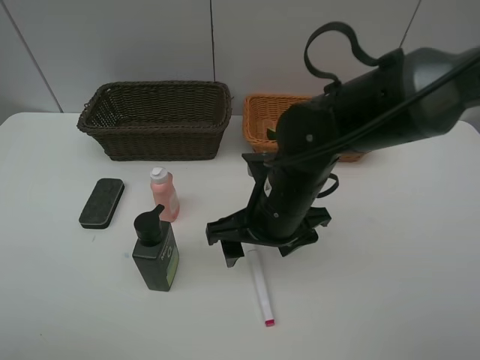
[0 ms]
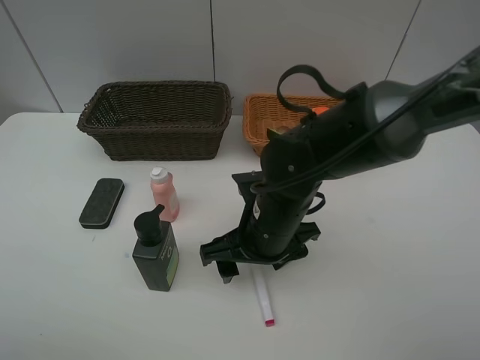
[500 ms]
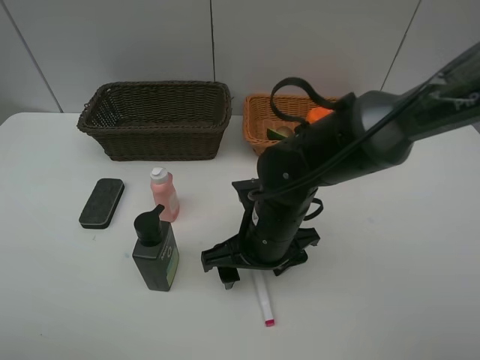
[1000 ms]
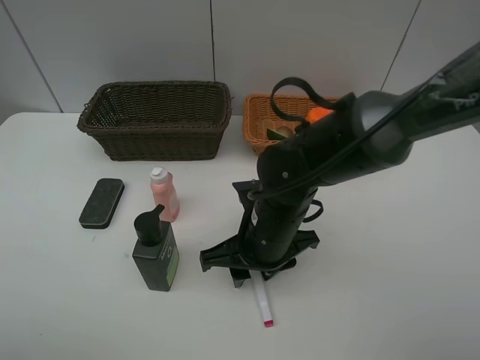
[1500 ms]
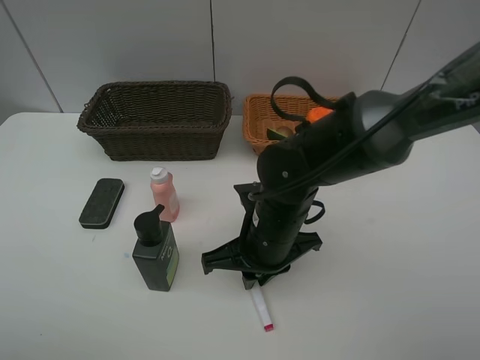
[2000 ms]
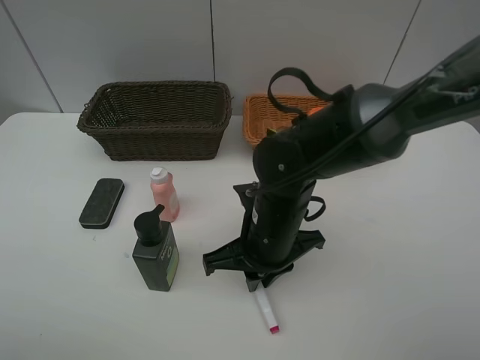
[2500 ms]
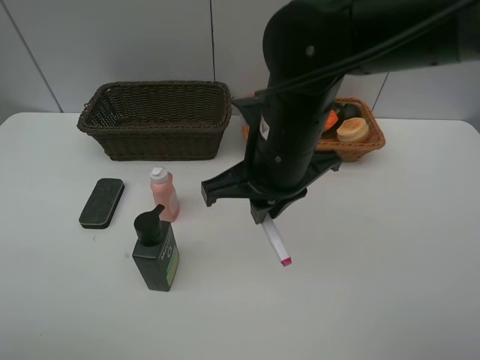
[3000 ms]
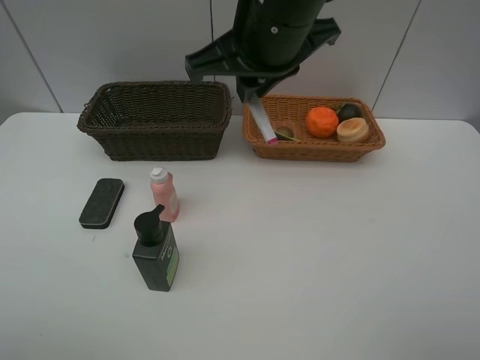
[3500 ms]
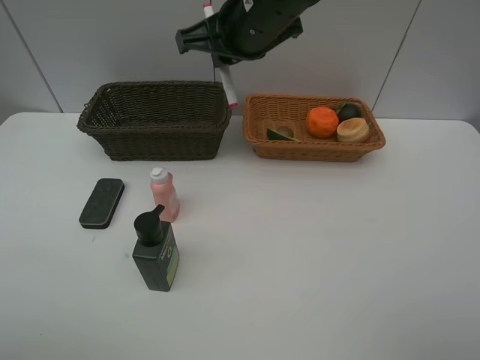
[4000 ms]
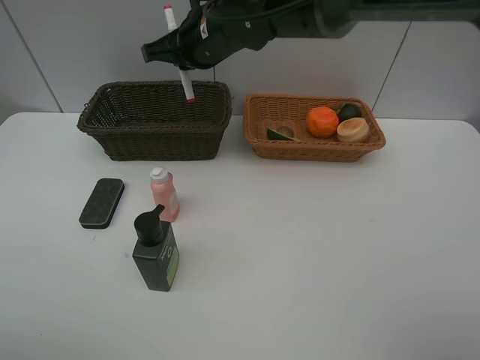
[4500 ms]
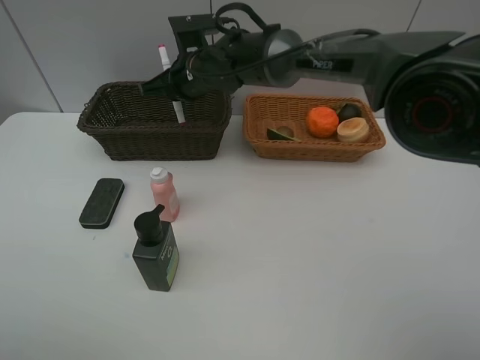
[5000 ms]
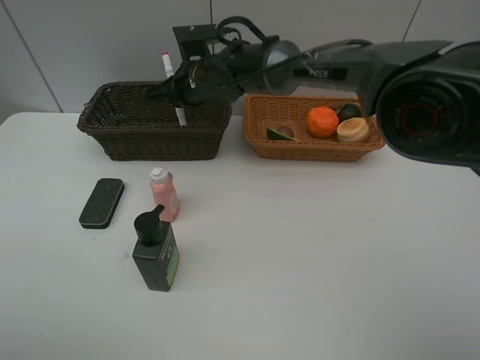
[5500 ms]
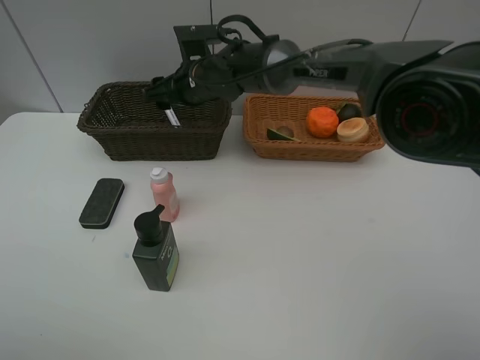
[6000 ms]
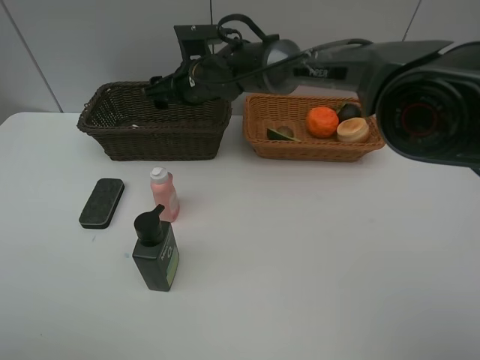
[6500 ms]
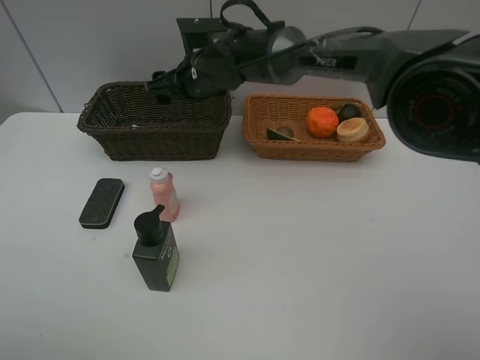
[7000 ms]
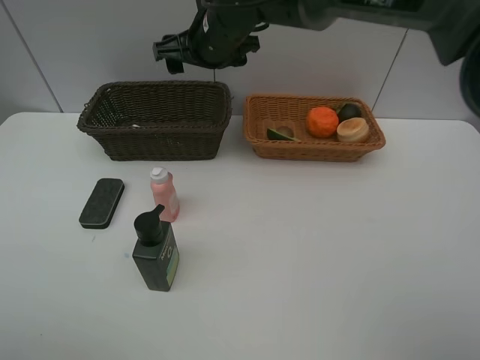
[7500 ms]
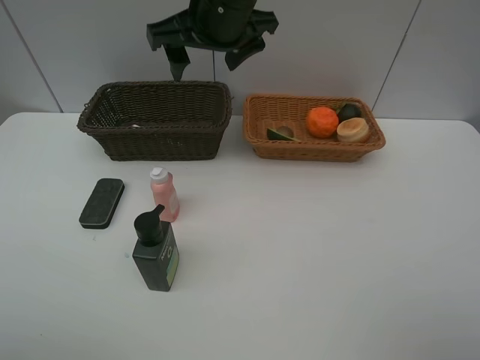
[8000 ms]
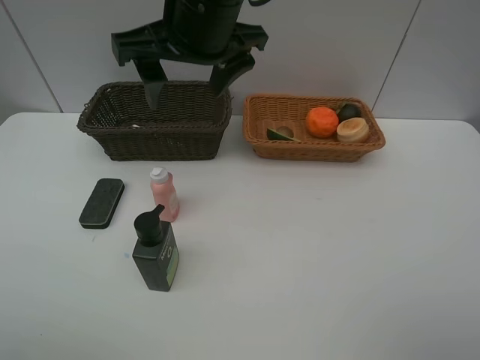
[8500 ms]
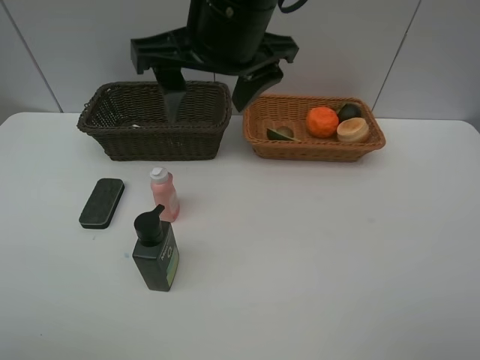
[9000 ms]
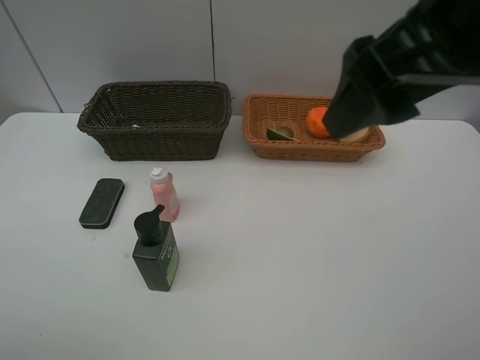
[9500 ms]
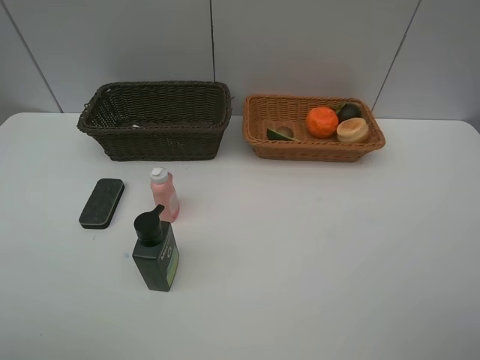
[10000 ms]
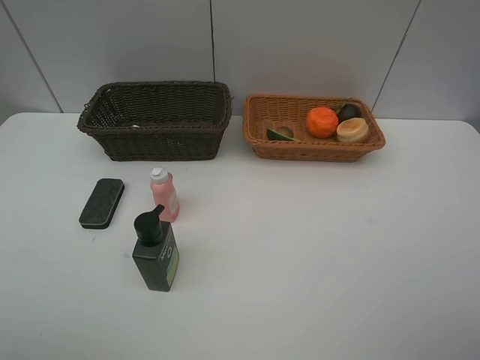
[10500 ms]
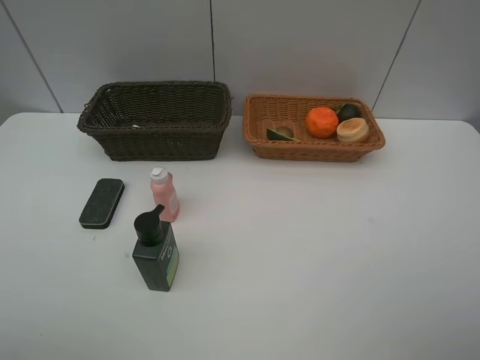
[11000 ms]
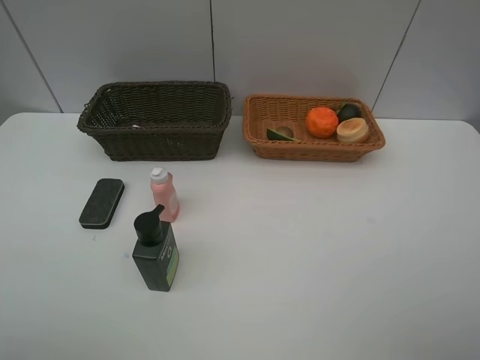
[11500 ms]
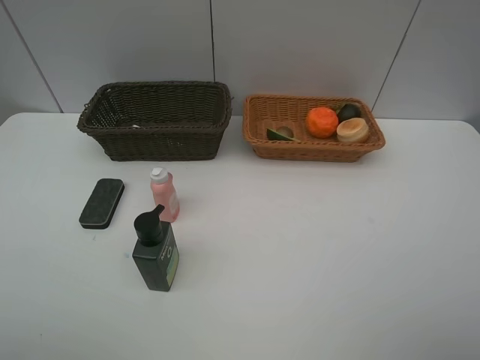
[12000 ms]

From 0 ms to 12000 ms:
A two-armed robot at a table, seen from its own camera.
Task of the whole recording: Place multiple objects separately in different baskets.
Step, from 0 ms to 2500 ms: Pick up the red marker with right gripper.
Step, from 3000 ms to 6500 ms: Place the red marker in the dark basket with right gripper.
From 0 ms to 2000 ms: The right gripper closes its fingers.
From 2000 ms to 4000 ms: The right gripper travels upward and forward by roughly 25 cm.
From 4000 ms to 6000 ms: The right gripper goes roughly 15 cm downward, forward and to the left, and opens up.
From 6000 ms to 8000 ms: The right gripper shifts approximately 15 cm upward and backward.
From 8000 ms to 10000 ms: The right gripper moves backward and to the right, about 40 cm.

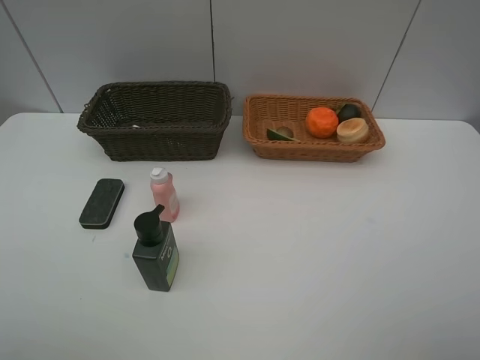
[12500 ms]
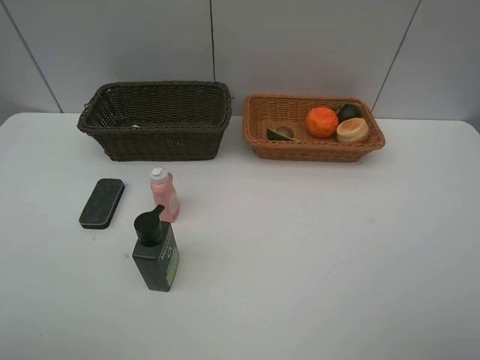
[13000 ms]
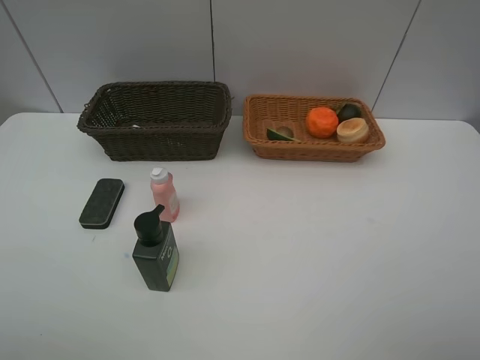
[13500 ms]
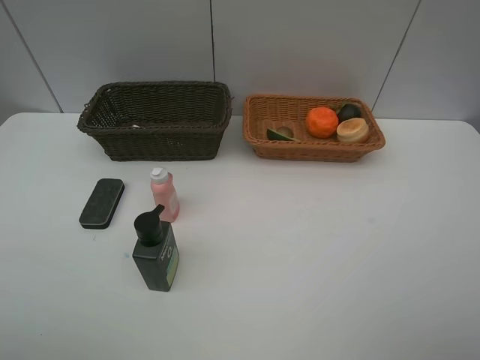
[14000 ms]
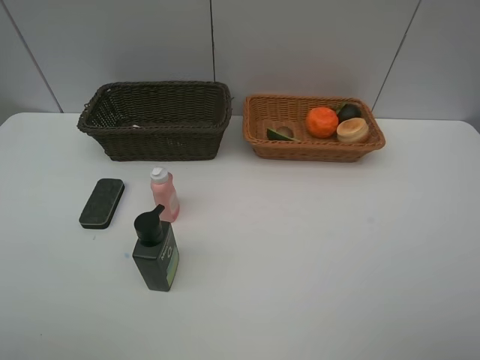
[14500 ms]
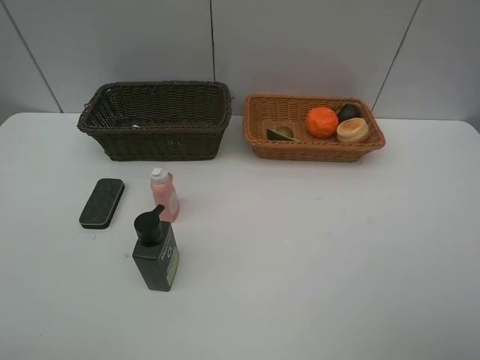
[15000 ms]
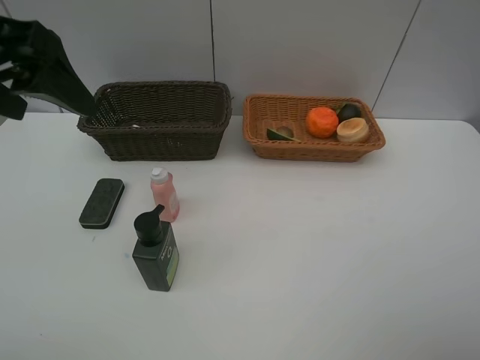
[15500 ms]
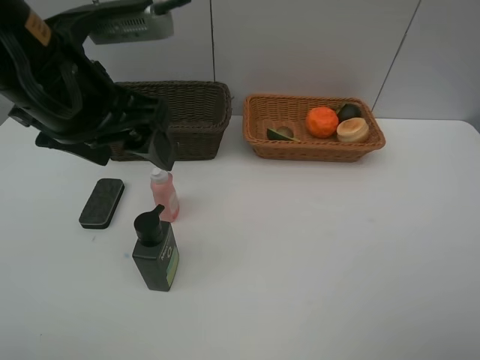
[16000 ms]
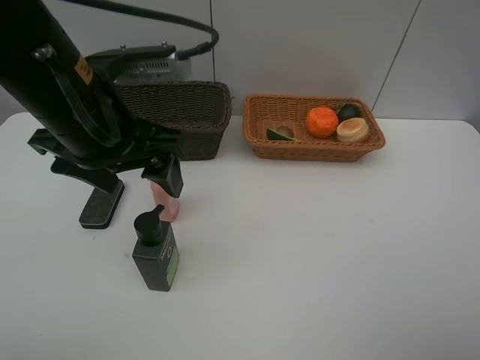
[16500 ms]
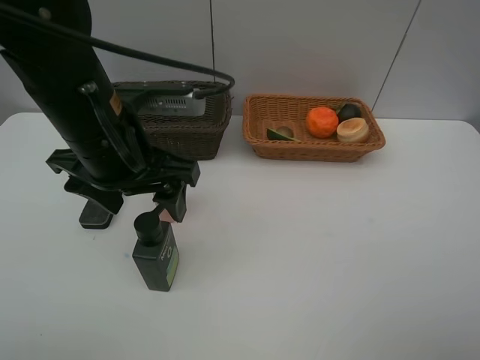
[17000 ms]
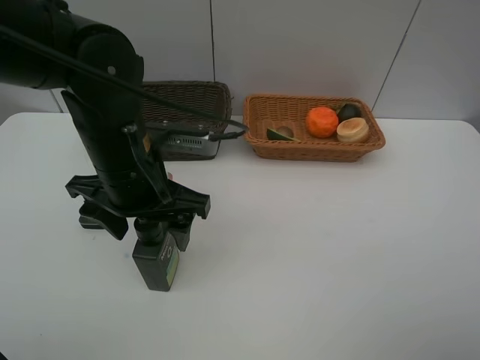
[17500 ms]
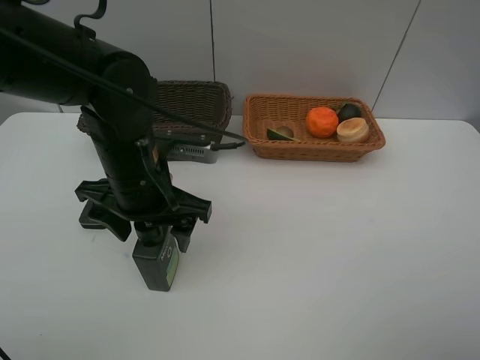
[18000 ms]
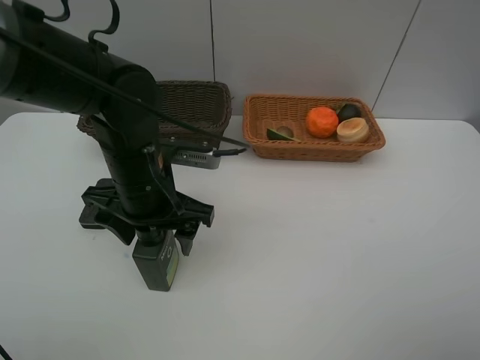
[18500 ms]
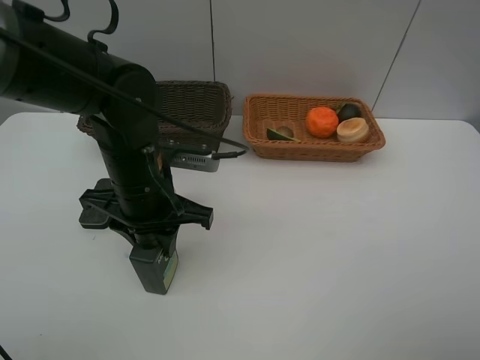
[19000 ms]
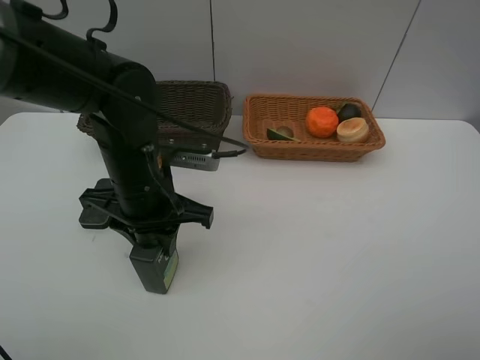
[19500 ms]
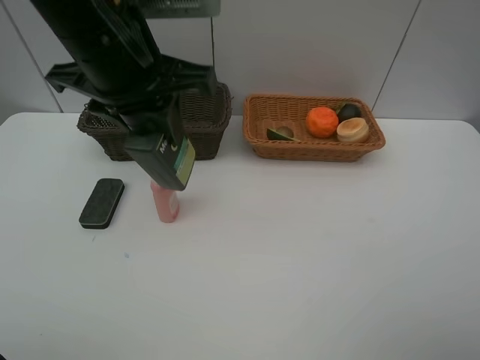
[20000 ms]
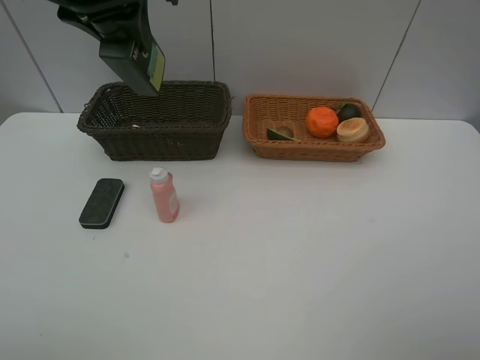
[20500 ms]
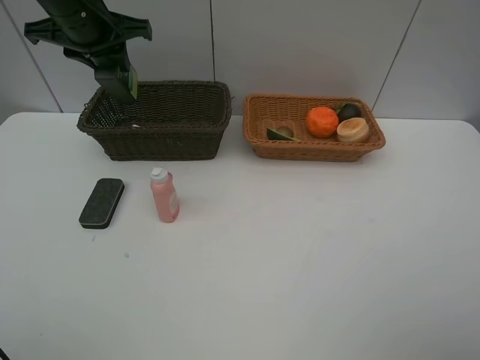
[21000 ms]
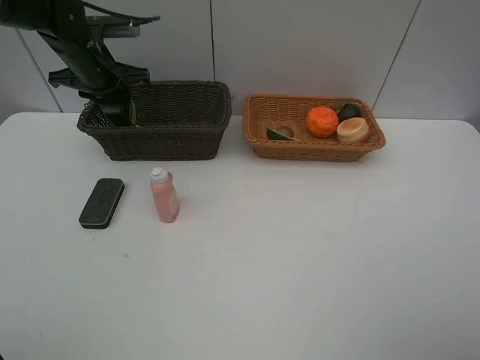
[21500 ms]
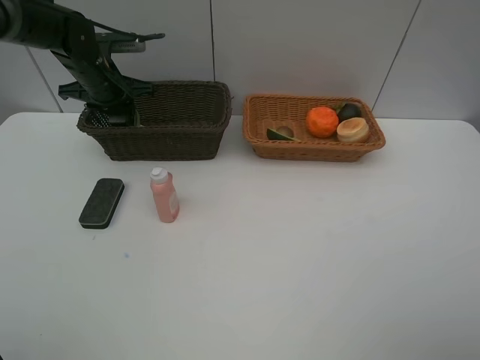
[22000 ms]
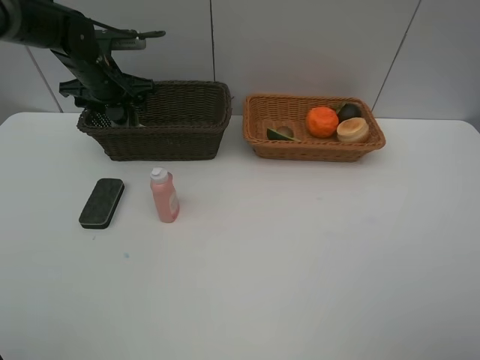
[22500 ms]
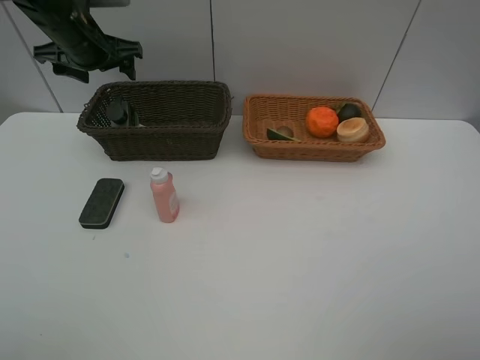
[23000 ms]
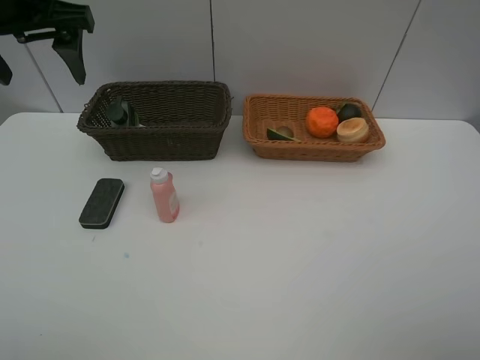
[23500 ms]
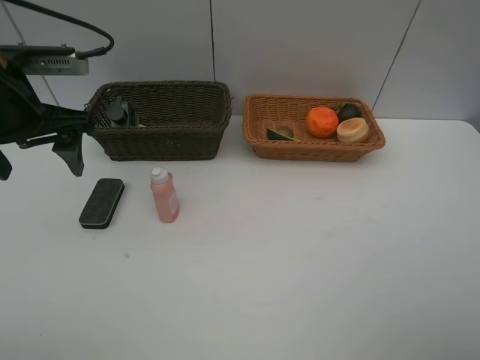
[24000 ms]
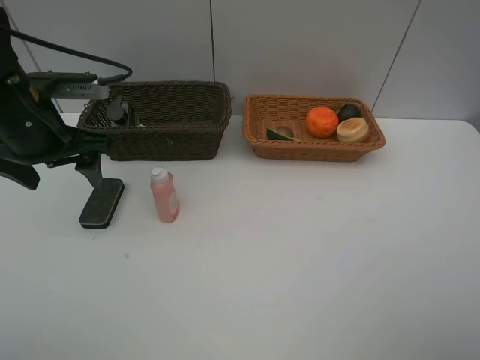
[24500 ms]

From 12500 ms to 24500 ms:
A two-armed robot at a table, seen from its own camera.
Task of the whole recording: Place multiple objects separately in different baskets.
Step, from 12500 ms to 19500 ms: Pick up the hard facial cleanser with left gripper.
Step, from 20000 ms to 22500 ms: Place the hard facial cleanser in the dark basket with left gripper.
From 14500 ms to 16500 ms: The left gripper moves forward and to the right, approximately 25 cm.
From 16500 ms to 18500 ms: The left gripper is displaced downward by approximately 10 cm.
From 18500 ms to 20500 ms: The left gripper heads upward, covering some 20 cm, and closes its fingers.
From 20500 ms to 22500 ms: The left gripper moves downward, forward and to the left, about 25 cm, and opens.
From 22500 ms to 24500 ms: The left gripper heads backward, covering approximately 20 cm.

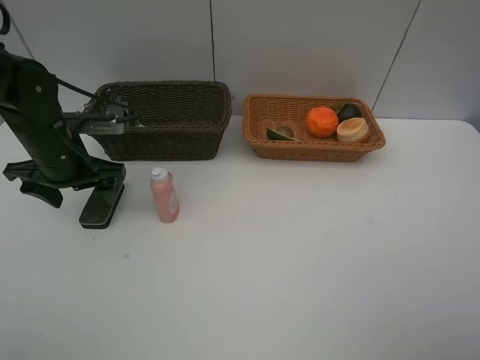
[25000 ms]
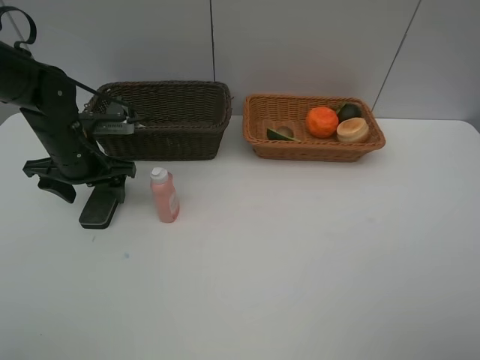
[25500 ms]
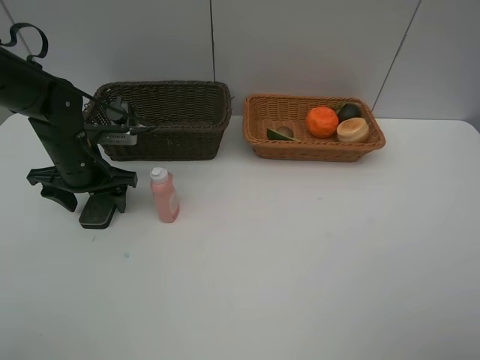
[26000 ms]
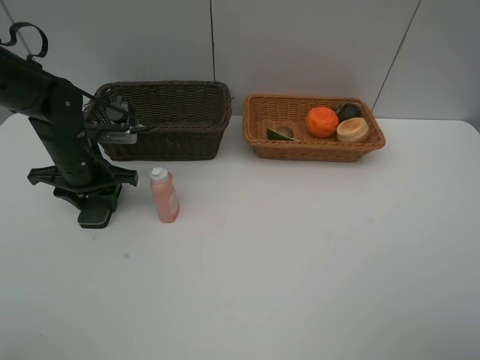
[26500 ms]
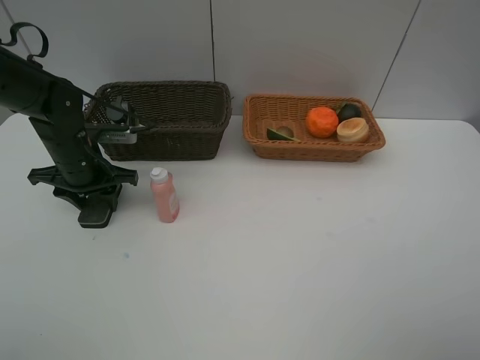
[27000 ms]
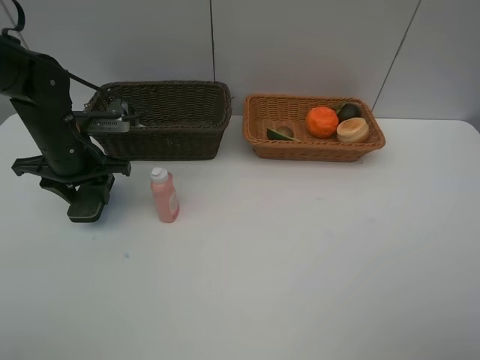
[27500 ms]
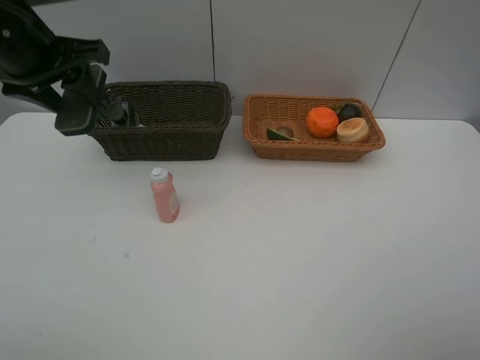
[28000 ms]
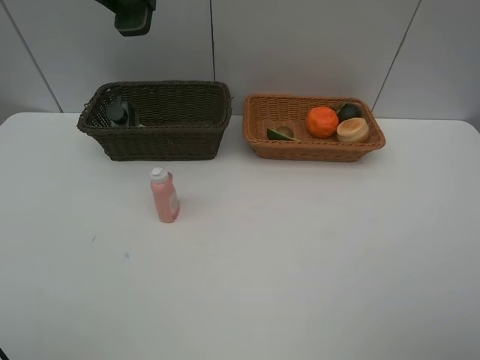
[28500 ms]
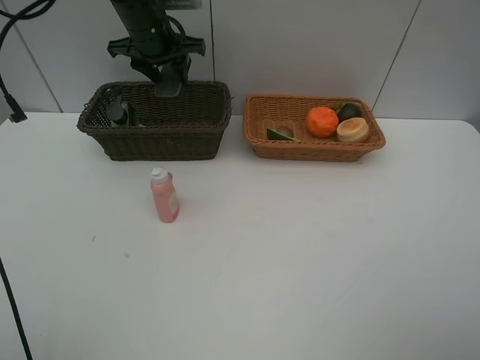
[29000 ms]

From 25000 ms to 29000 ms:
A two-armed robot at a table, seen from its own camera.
Task of the whole recording: Place multiple objects separately in different baskets.
Step, from 25000 ms to 27500 ms: Pick up blackboard eraser with left gripper.
From 25000 ms to 27000 ms: The left gripper closes.
From 27000 ms to 29000 ms: The left gripper is displaced forward, upward and to the right by about 20 cm.
